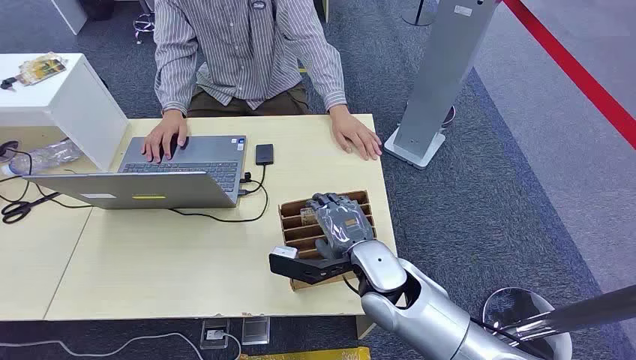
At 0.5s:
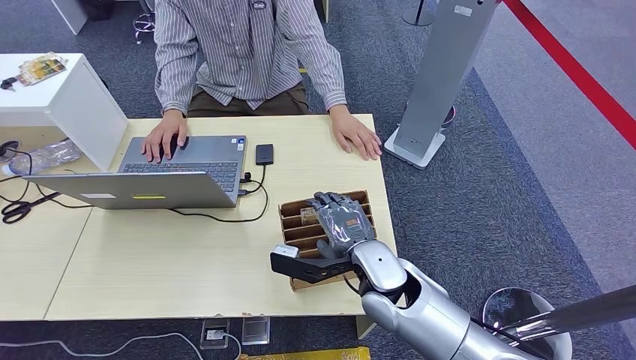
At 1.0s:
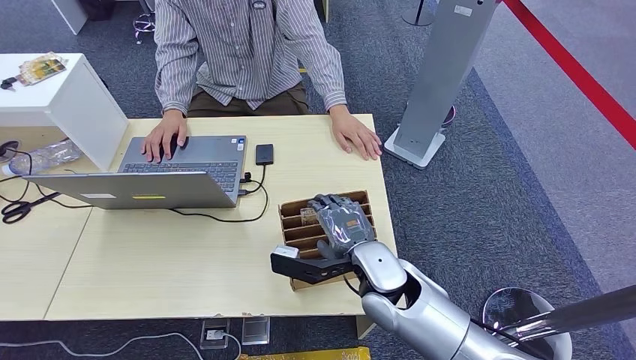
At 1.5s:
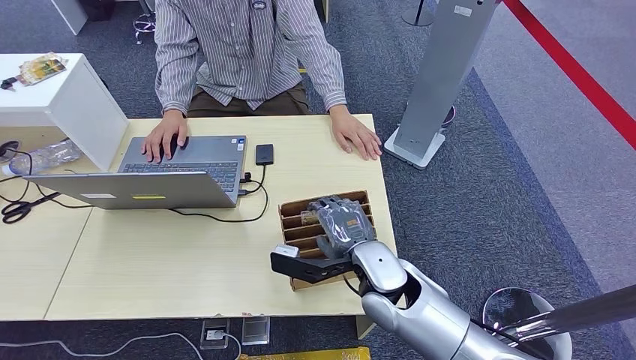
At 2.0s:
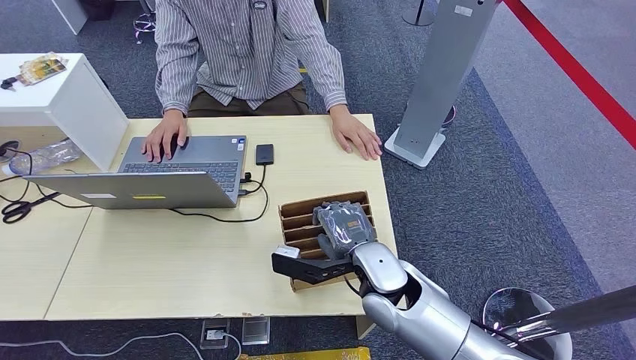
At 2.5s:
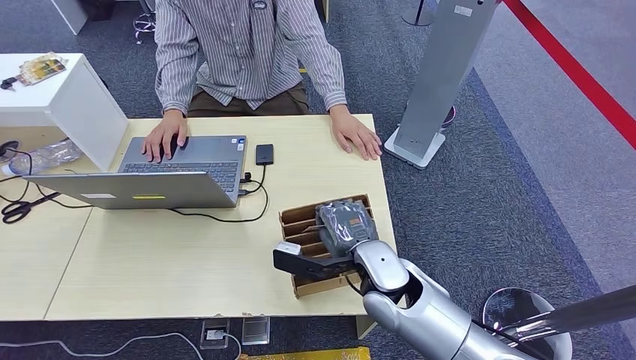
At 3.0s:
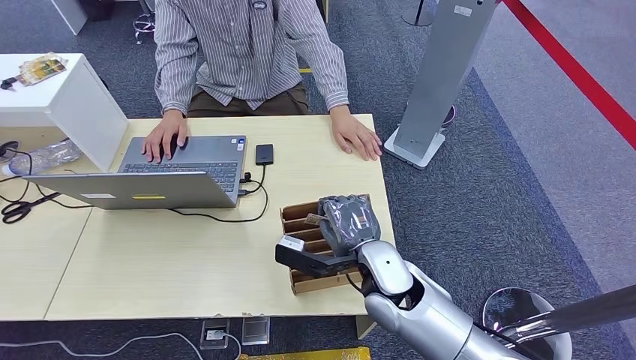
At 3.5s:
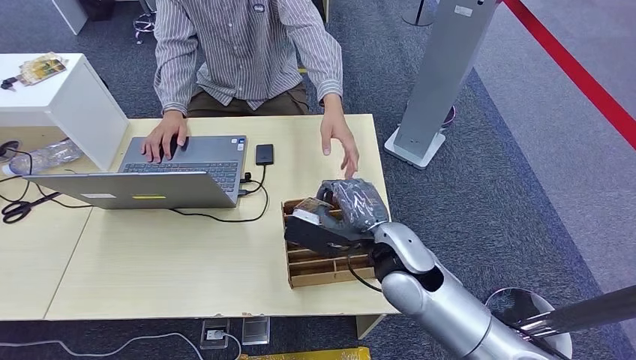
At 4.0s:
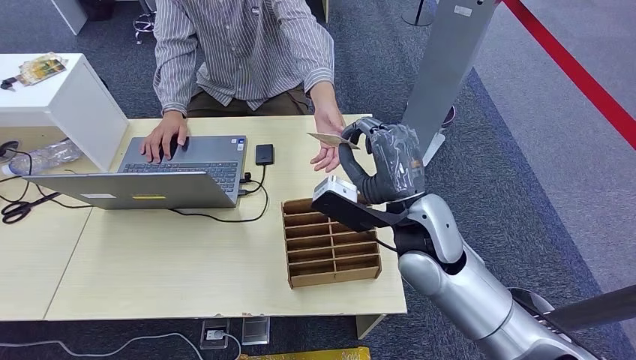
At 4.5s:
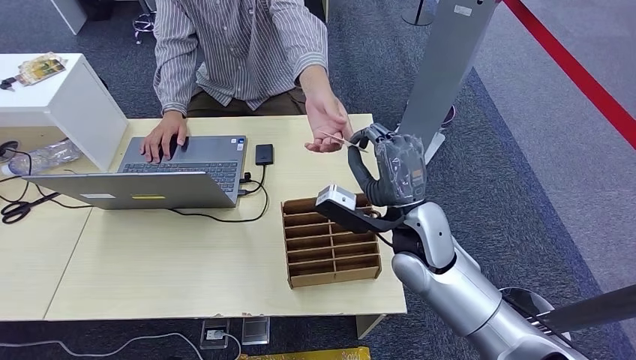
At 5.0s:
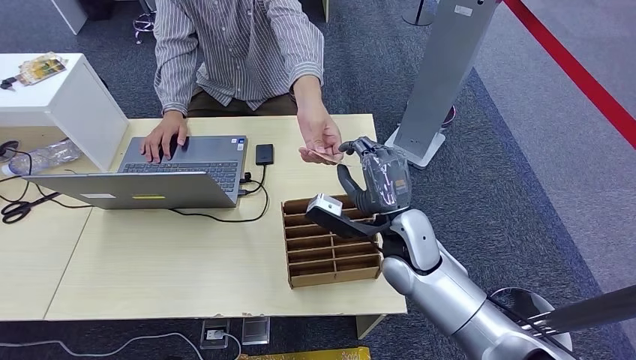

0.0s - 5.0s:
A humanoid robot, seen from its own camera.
Step, 0.0s - 3.5s: Pick up the room card from the card holder.
Step, 4.5s - 5.0s: Hand the room card to the target.
2.5s - 5.0s: The right hand moves approximately 10 cm upward and comes back.

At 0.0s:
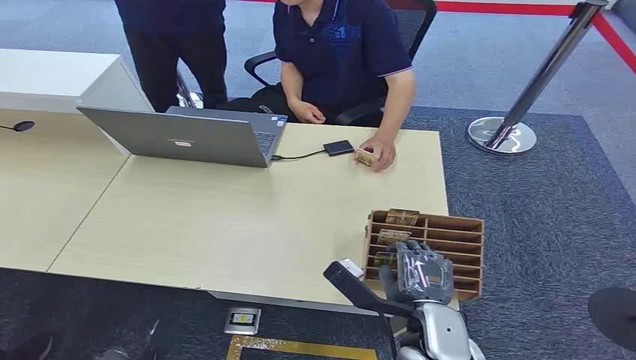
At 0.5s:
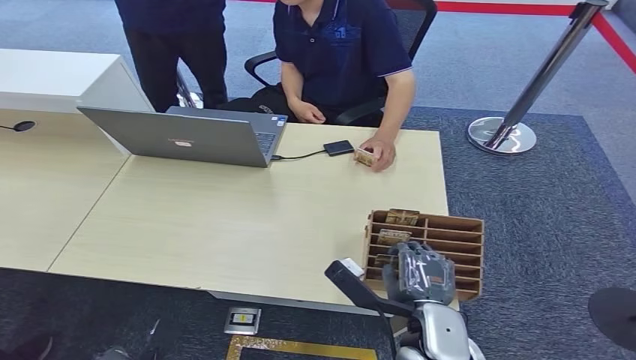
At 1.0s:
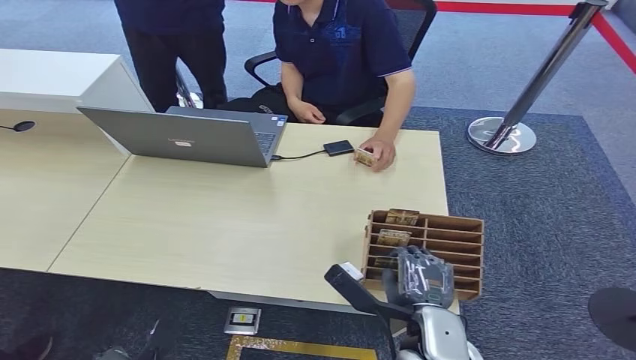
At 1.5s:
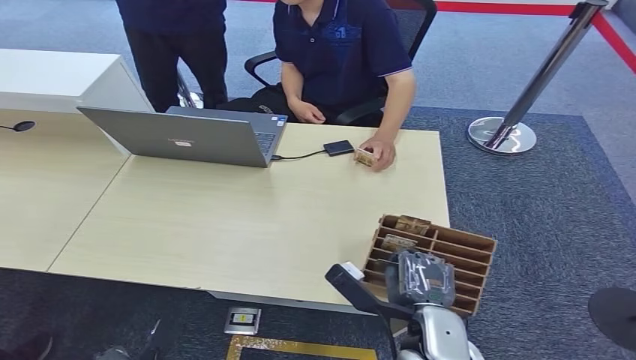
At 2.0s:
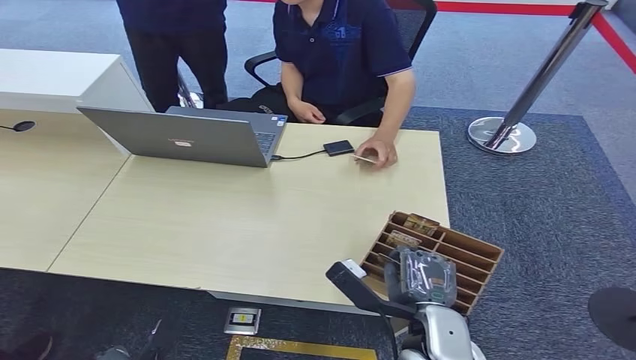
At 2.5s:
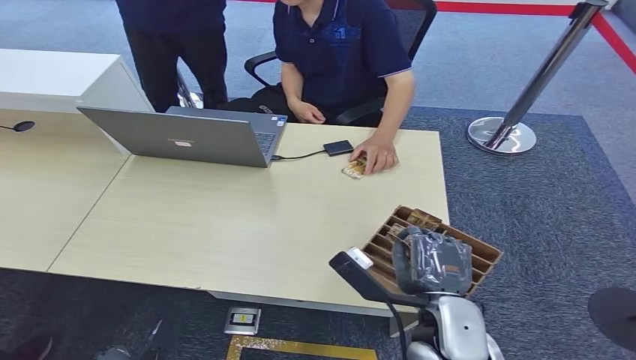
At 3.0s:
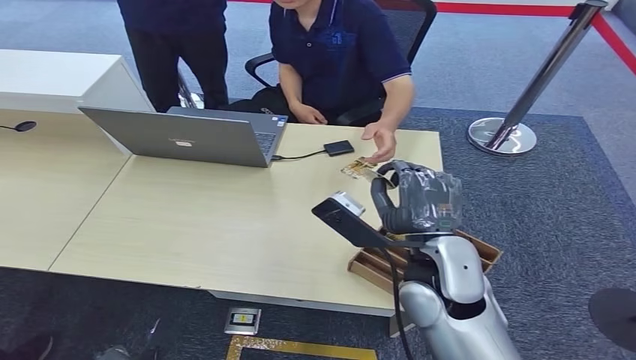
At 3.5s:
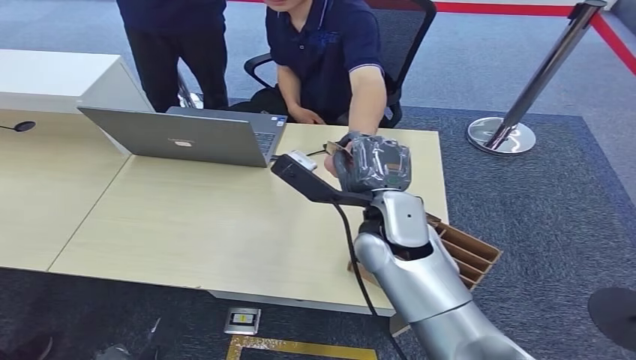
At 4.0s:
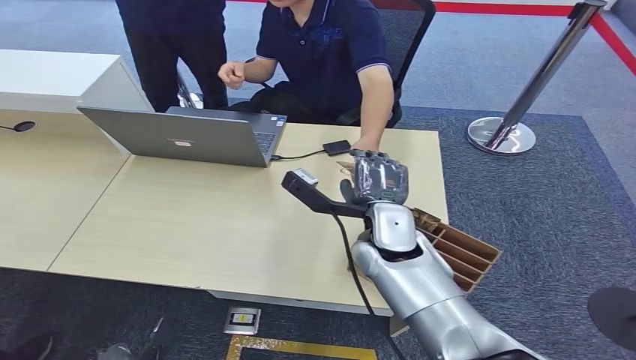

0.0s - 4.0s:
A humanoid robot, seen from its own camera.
Step, 0.0s - 2.0s: Pick up the room card from the card holder.
Step, 2.5s - 4.0s: Hand the room card to the target.
2.0s - 4.0s: The right hand moves forward and upward, some 20 cm.
